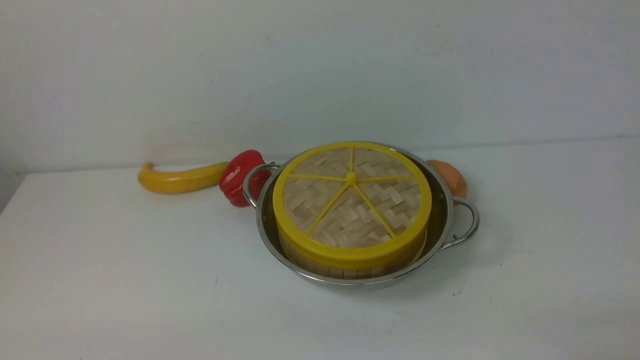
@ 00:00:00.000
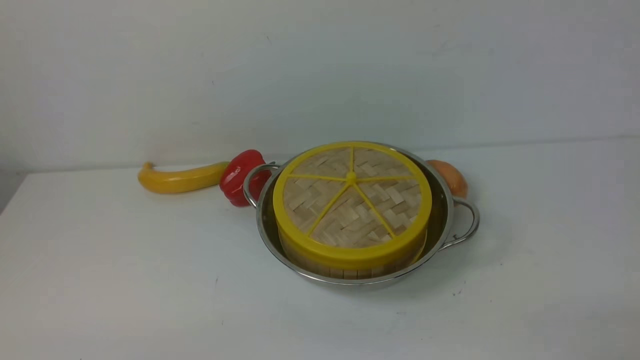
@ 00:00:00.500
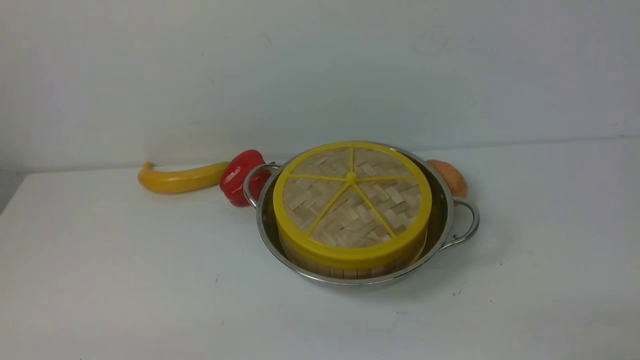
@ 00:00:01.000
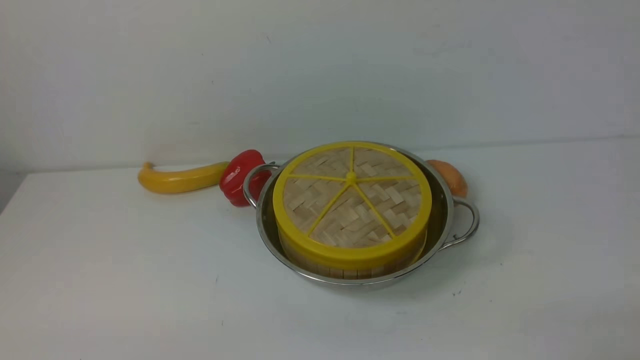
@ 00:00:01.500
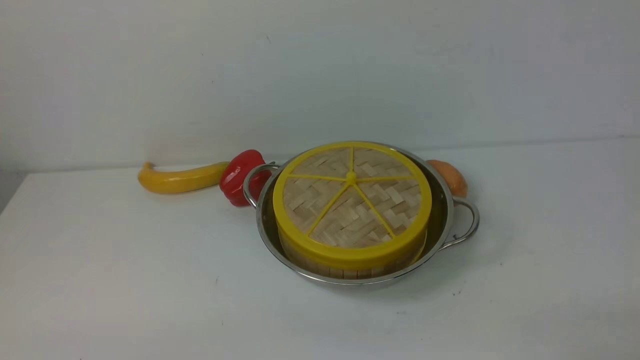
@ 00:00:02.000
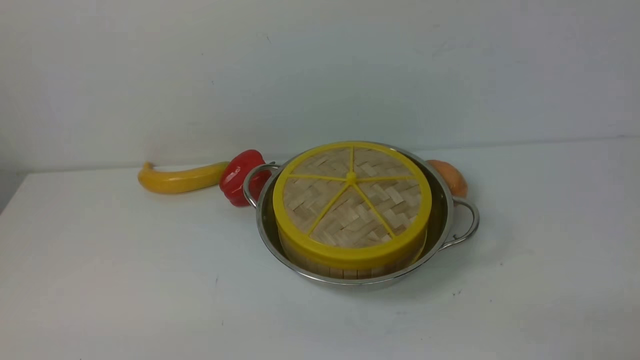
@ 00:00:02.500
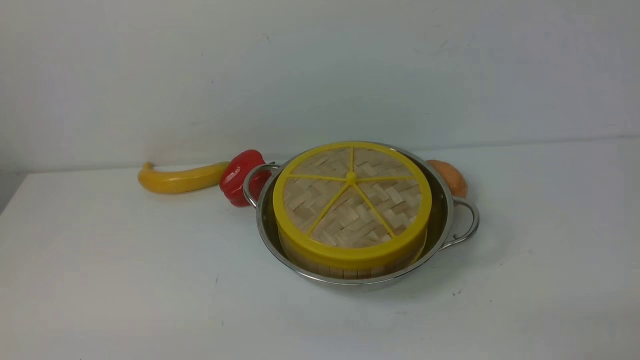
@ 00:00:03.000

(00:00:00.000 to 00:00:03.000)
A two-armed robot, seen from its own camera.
Task of the whole recording: place the steamer in the pot on the white table, and put the lid on the steamer.
00:00:00.000 - 00:00:03.000: Both grippers stay put.

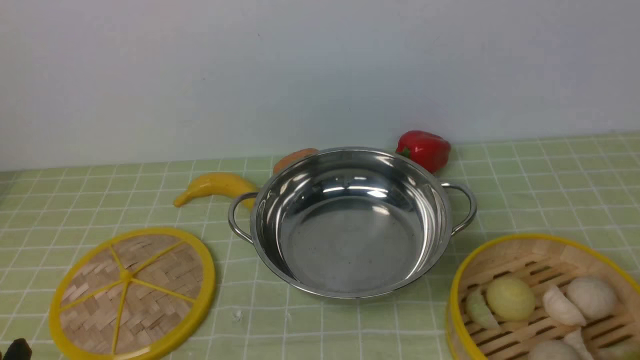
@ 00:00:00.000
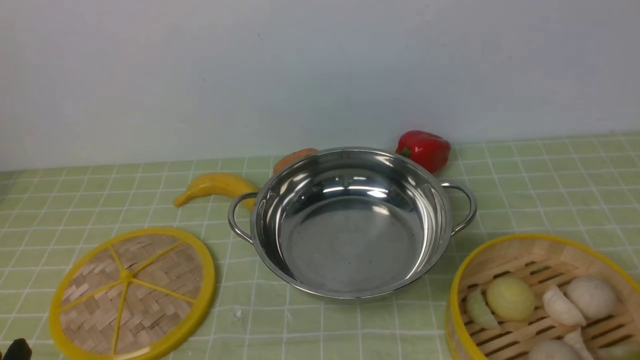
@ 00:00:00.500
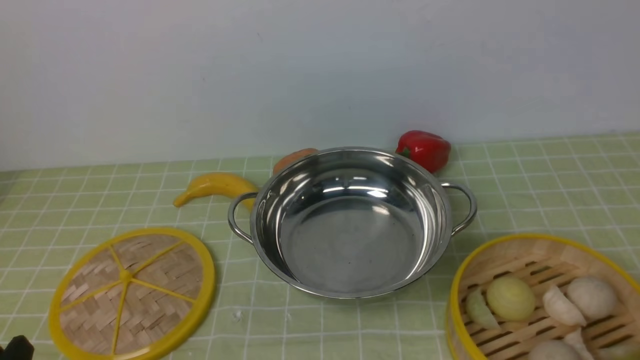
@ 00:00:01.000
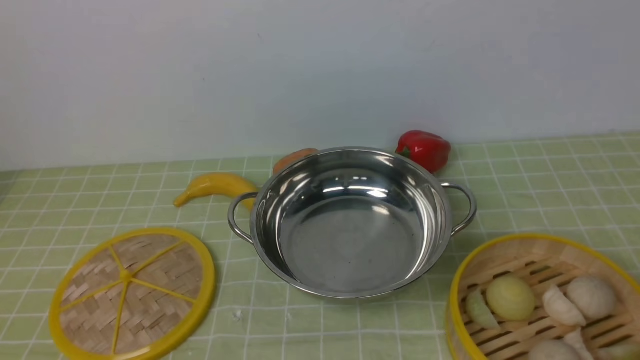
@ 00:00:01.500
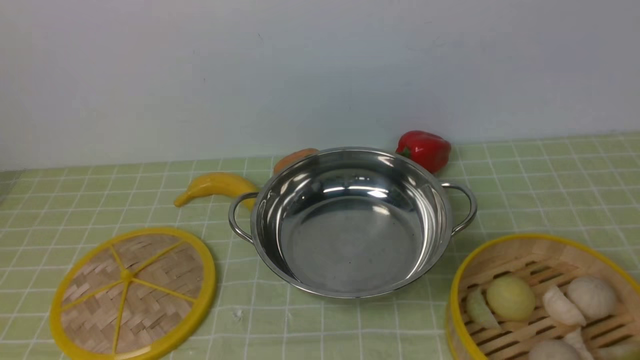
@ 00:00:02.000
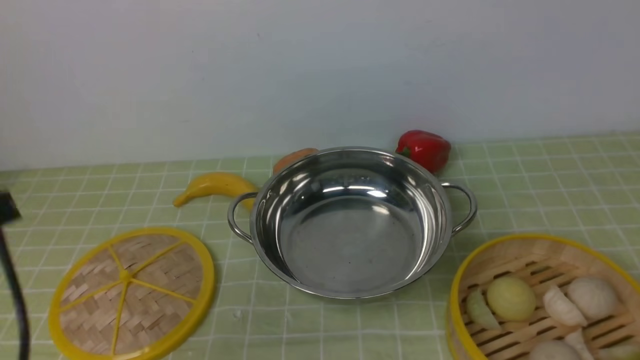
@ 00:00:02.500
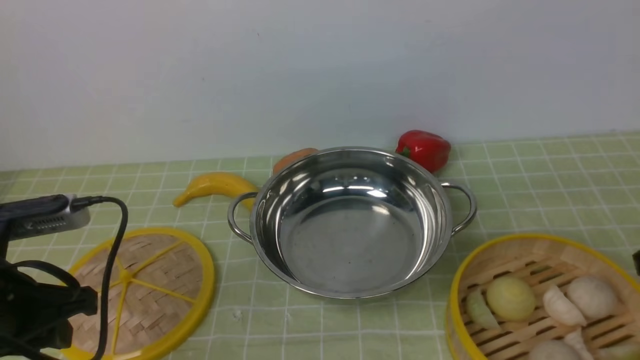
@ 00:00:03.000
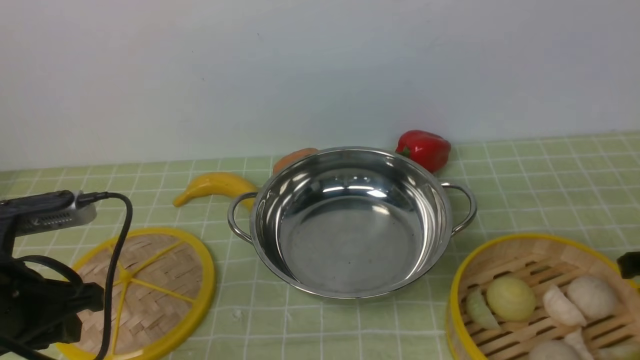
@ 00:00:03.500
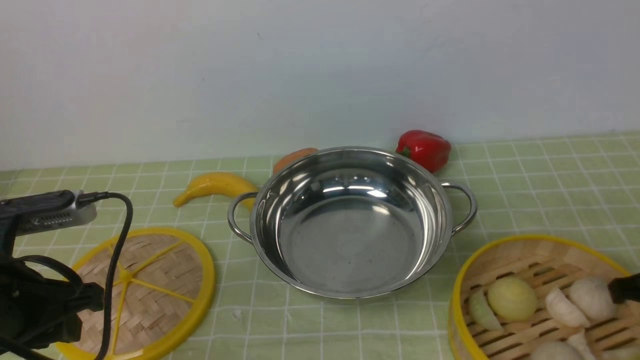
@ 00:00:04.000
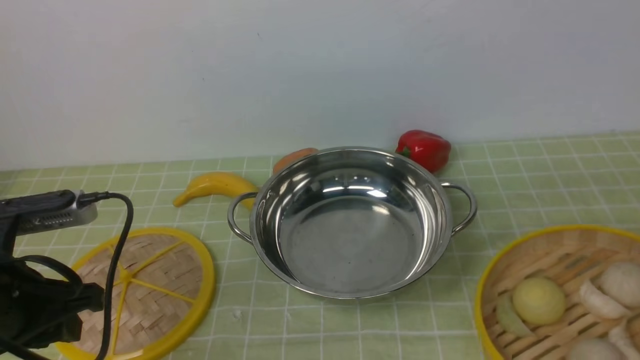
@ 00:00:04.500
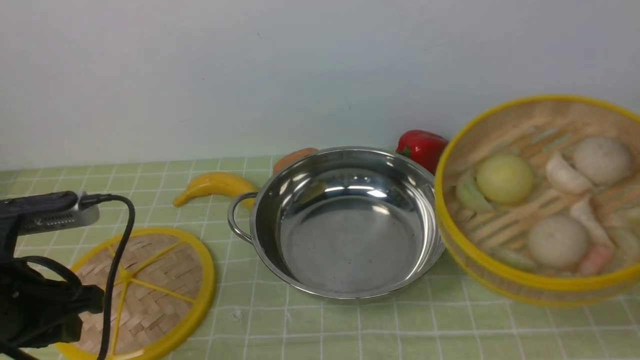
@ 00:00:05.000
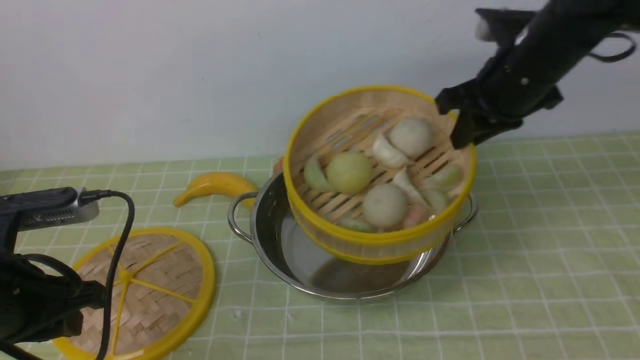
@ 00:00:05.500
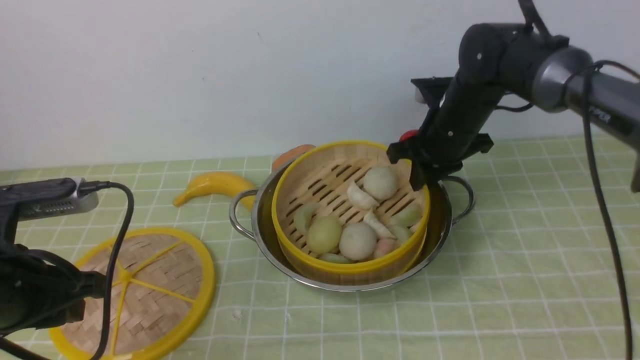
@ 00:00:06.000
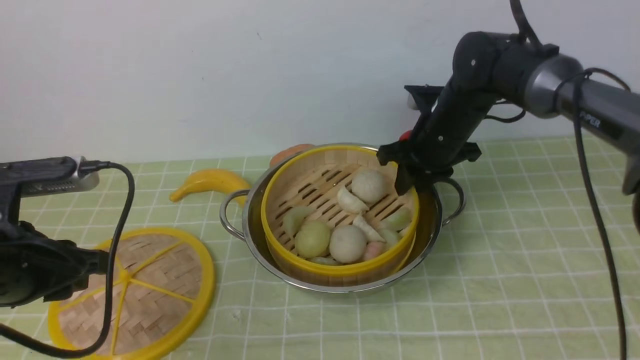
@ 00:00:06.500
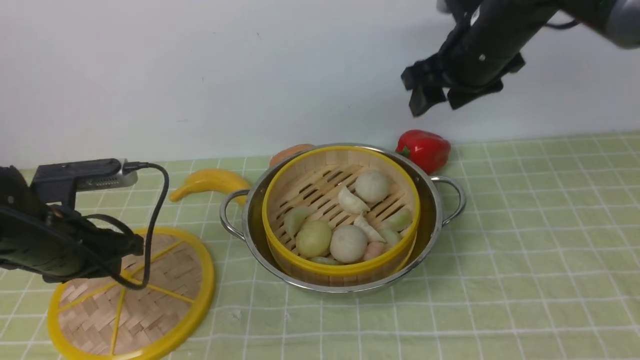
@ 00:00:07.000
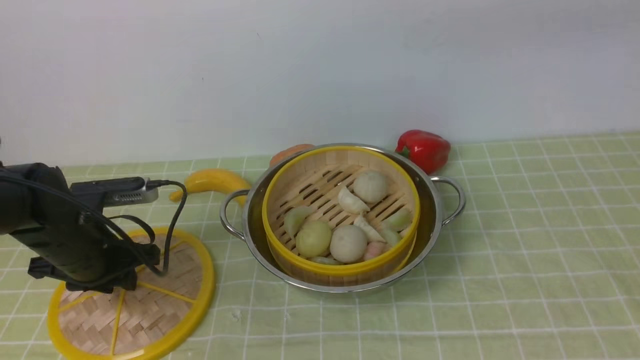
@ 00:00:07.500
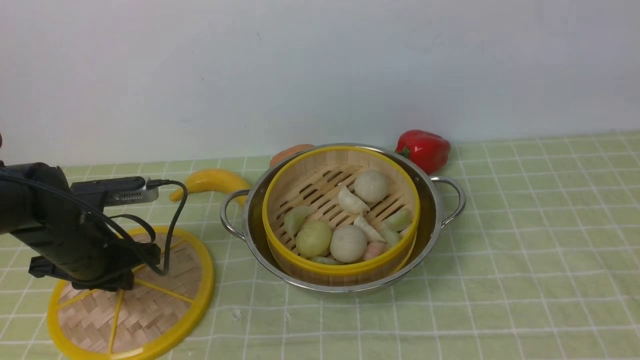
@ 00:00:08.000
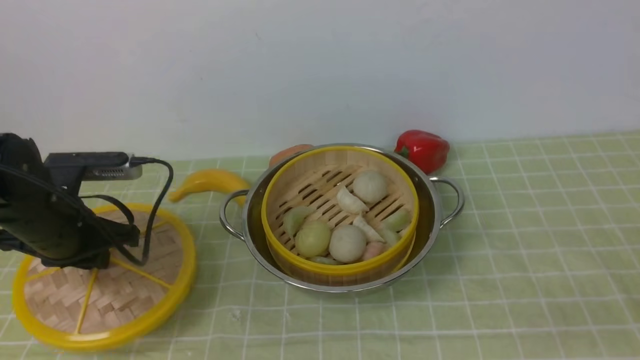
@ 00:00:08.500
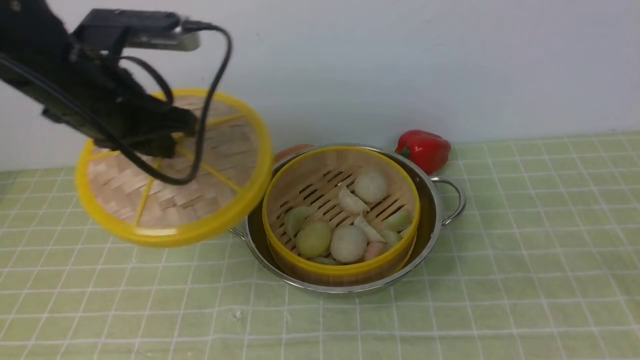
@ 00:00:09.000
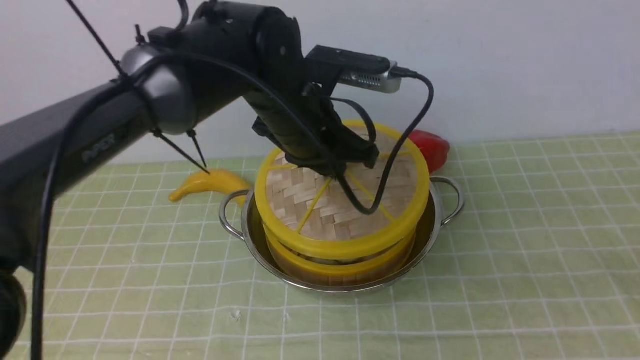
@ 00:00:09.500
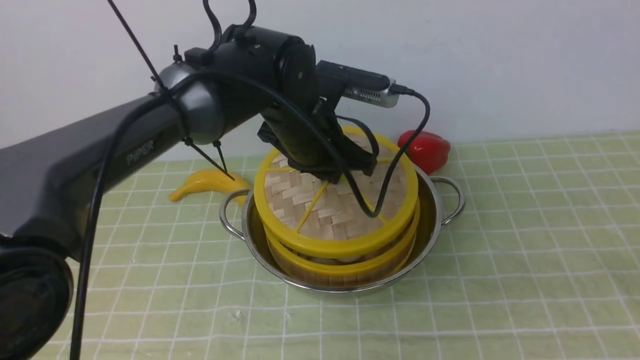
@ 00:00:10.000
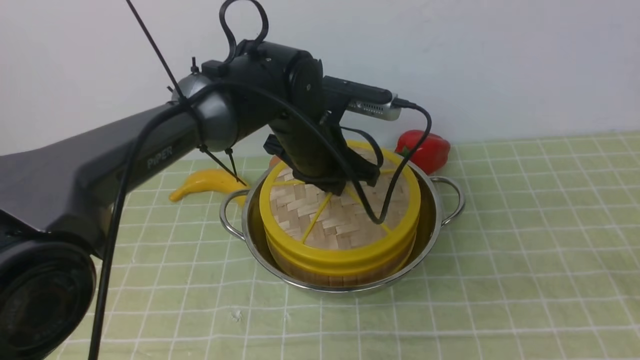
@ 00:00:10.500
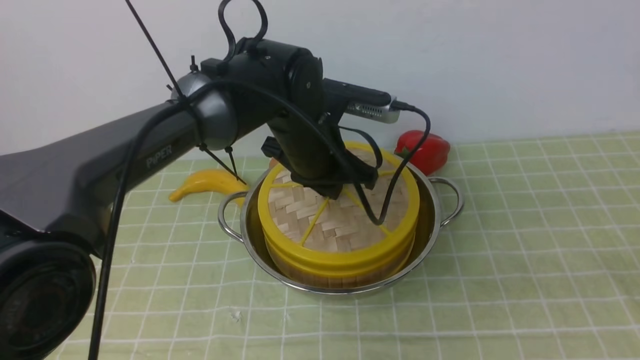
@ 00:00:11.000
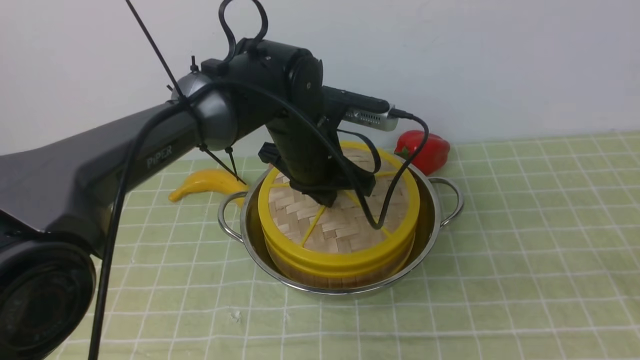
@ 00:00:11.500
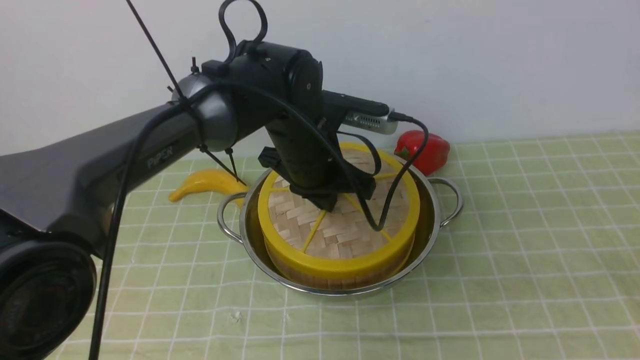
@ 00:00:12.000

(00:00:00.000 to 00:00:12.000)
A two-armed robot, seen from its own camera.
Task of the whole recording: place the steamer in the pot on the green tablecloth, and put the lid on the steamer.
Step, 00:00:00.000 - 00:00:05.000: use the right arm to lift the steamer closest to it.
Step, 00:00:05.500 - 00:00:07.000: use the right arm to put the steamer into the iron steamer pot in the middle.
00:00:02.000 - 00:00:04.000: The left gripper travels forward by approximately 15 cm. Meanwhile the right gripper travels forward and downward by about 25 cm.
00:00:04.000 - 00:00:06.000: The right gripper is displaced forward and to the left by some 30 cm.
00:00:06.000 - 00:00:08.000: The left gripper travels forward and downward by approximately 15 cm, and closes its fingers, while the right gripper is displaced upward and backward by about 40 cm, and opens up.
00:00:08.000 - 00:00:10.000: The left gripper heads to the right, covering some 25 cm. Meanwhile the right gripper is displaced downward and backward by approximately 25 cm.
00:00:10.000 - 00:00:12.000: The left gripper closes.

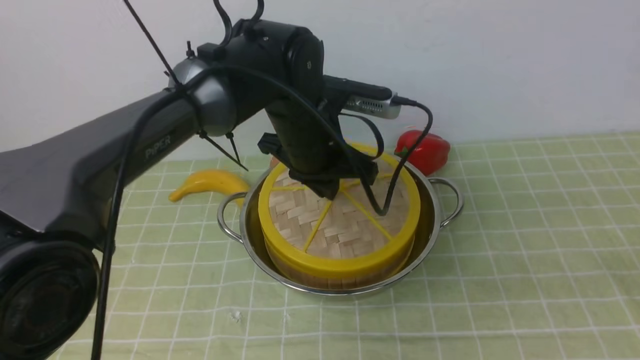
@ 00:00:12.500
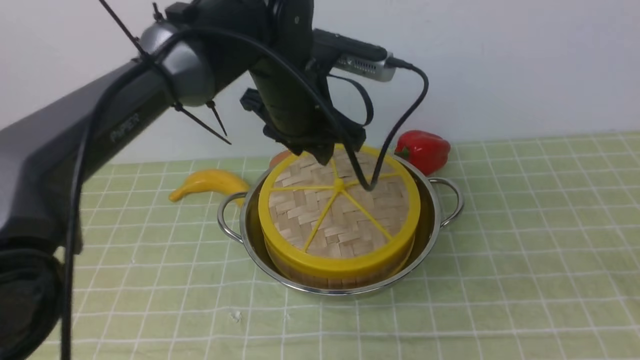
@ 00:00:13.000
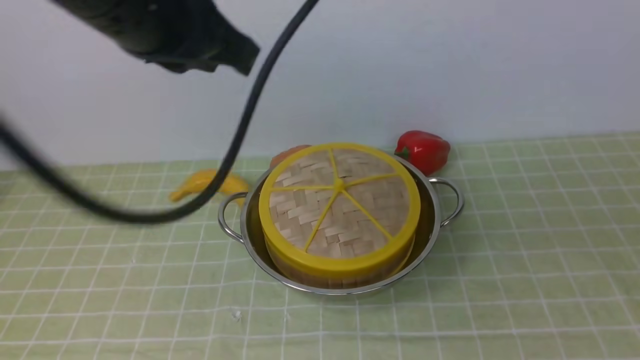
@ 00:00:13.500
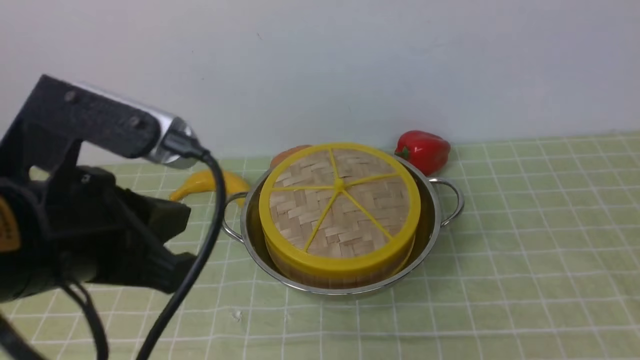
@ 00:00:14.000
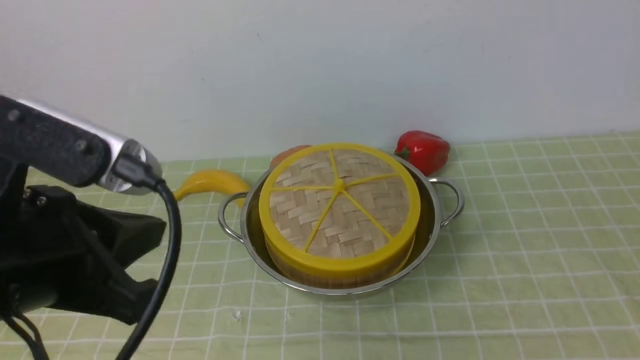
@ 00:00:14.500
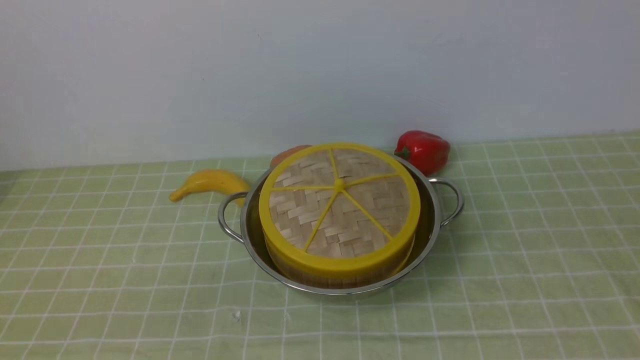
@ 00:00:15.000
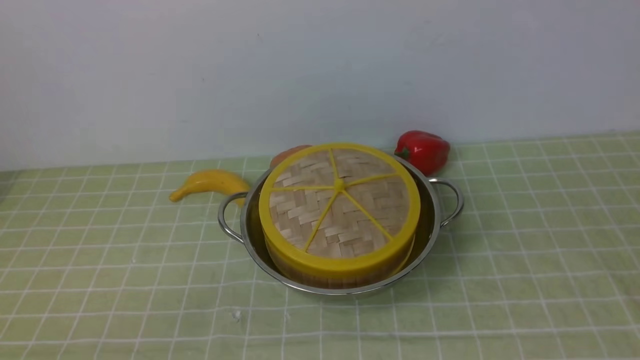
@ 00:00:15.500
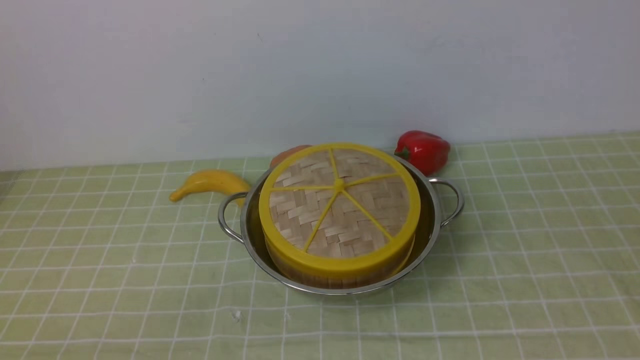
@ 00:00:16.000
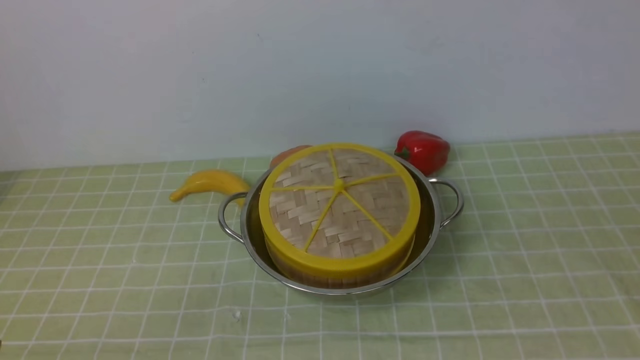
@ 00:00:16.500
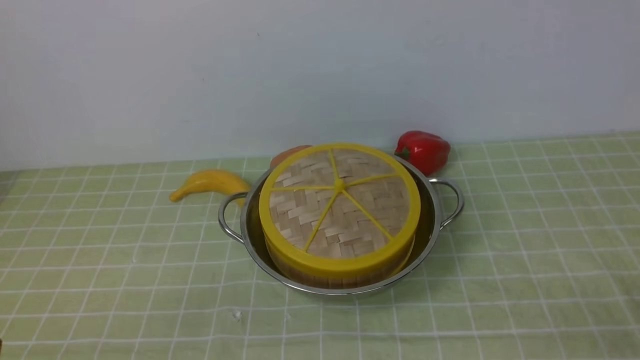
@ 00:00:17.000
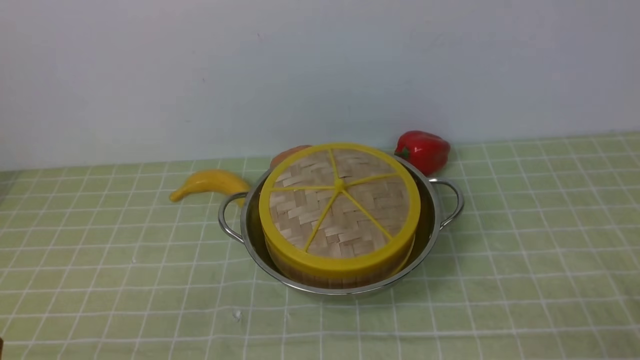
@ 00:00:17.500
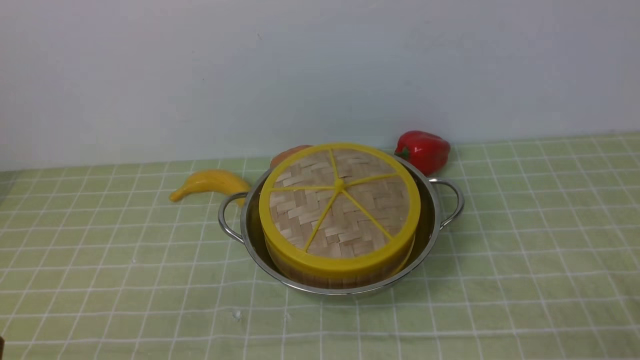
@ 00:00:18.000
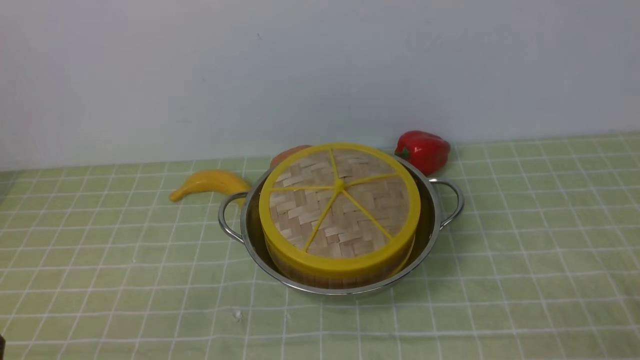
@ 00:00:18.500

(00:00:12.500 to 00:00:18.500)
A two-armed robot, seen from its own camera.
Task of the whole recording: place the steamer in the pot on the green tablecloth, and put the lid on the steamer.
00:00:12.500 - 00:00:14.500: The left gripper shifts roughly 30 cm backward, to the left and upward, and opens and closes again. The right gripper closes up.
00:00:14.500 - 00:00:16.500: The left gripper goes approximately 20 cm downward, backward and to the left, and opens up.
